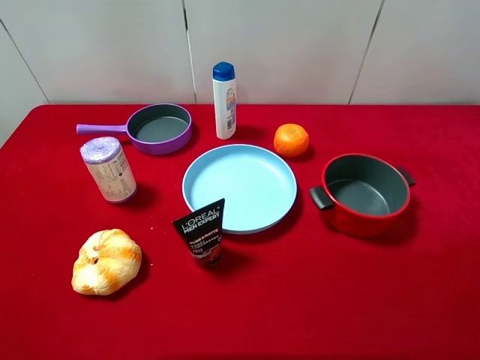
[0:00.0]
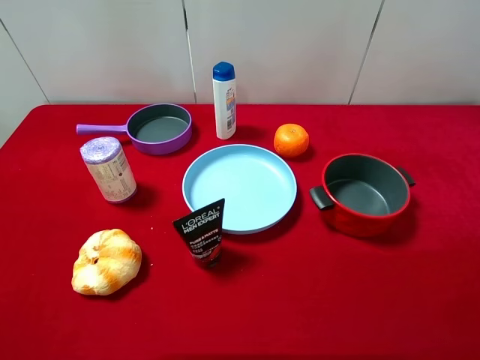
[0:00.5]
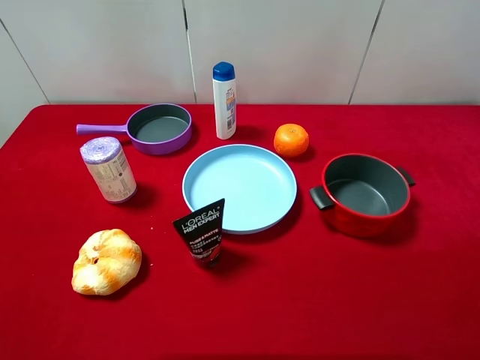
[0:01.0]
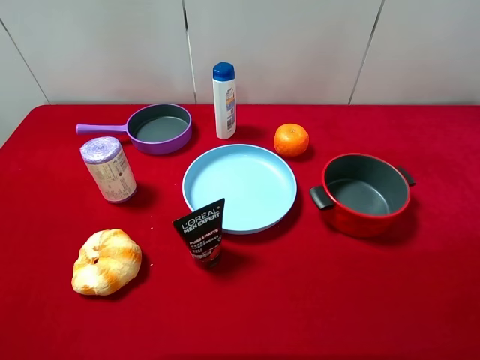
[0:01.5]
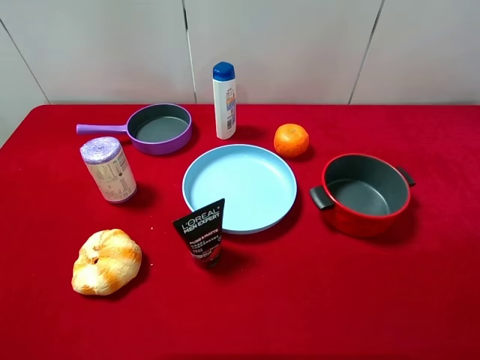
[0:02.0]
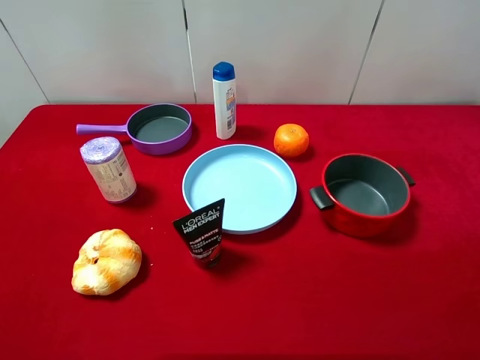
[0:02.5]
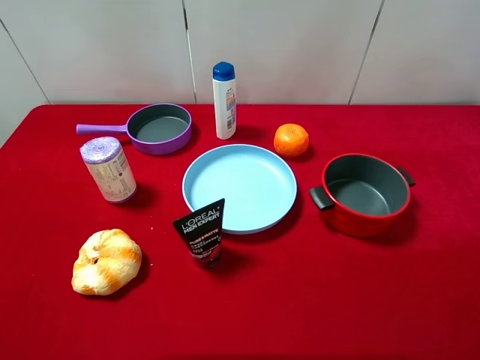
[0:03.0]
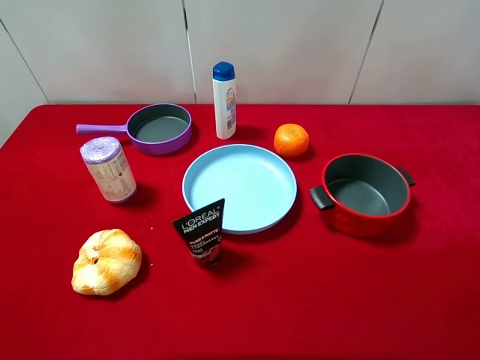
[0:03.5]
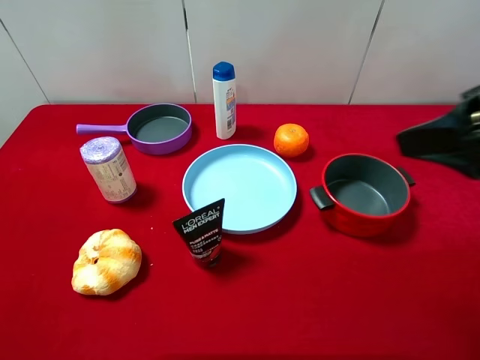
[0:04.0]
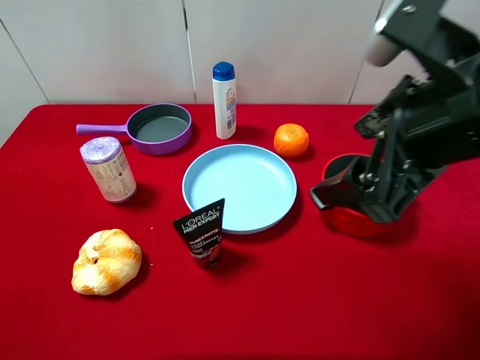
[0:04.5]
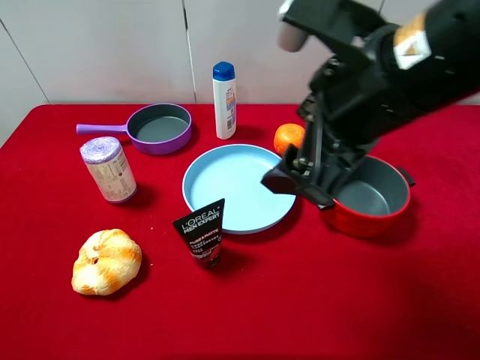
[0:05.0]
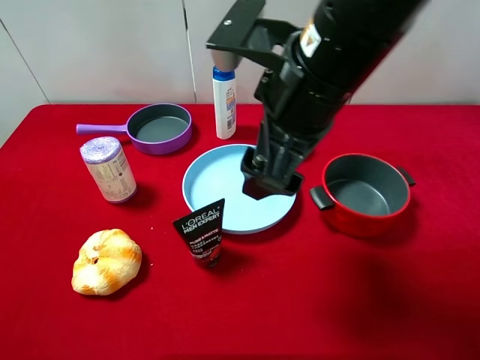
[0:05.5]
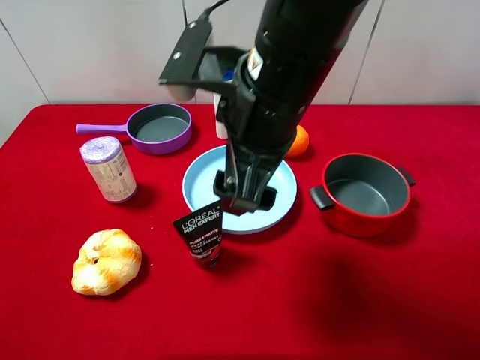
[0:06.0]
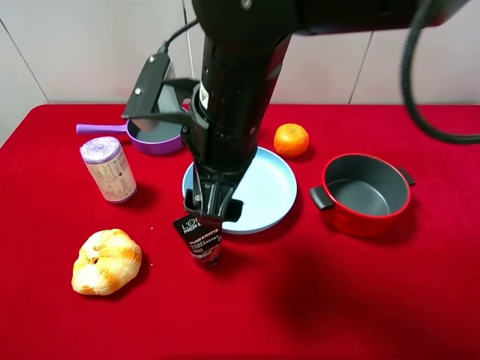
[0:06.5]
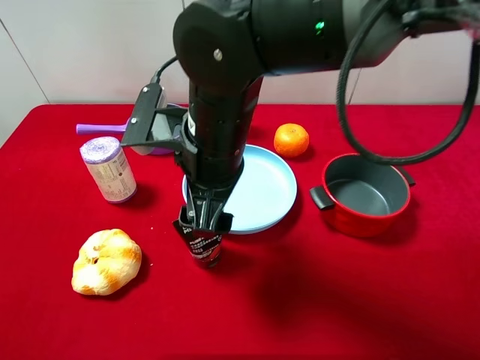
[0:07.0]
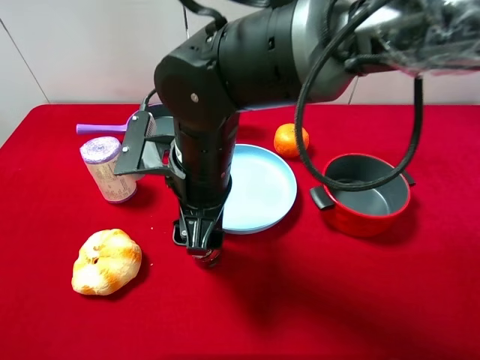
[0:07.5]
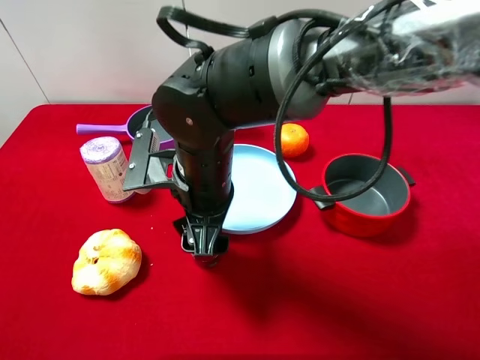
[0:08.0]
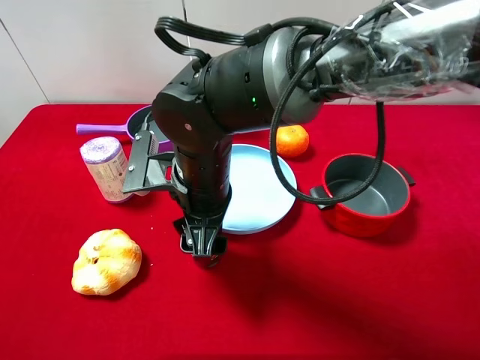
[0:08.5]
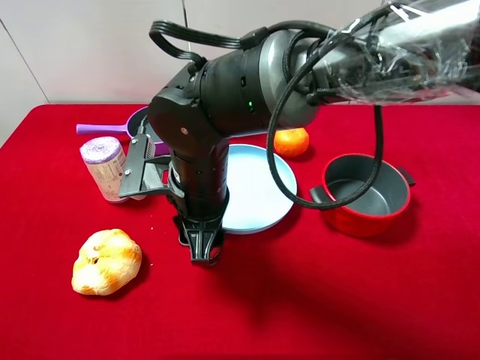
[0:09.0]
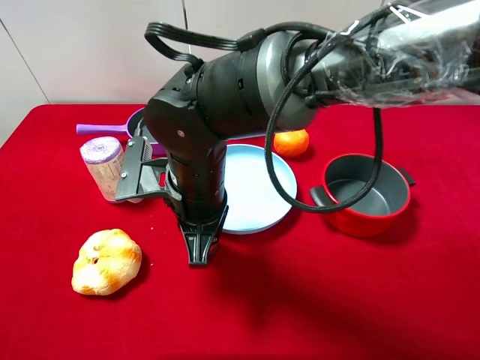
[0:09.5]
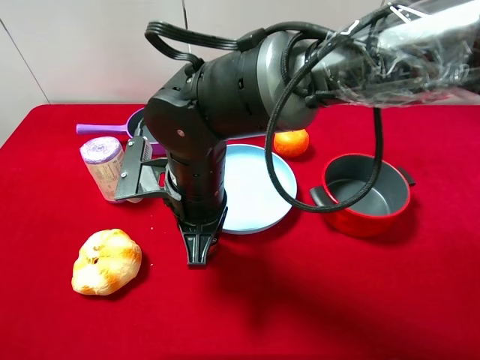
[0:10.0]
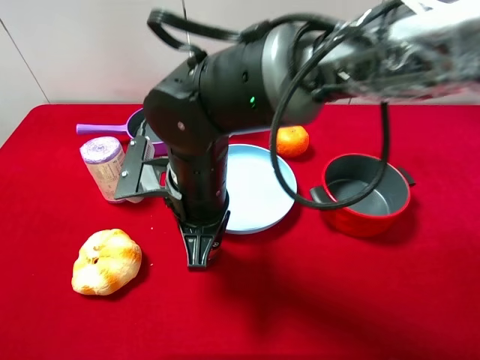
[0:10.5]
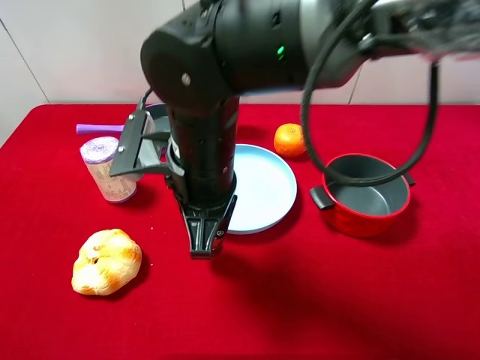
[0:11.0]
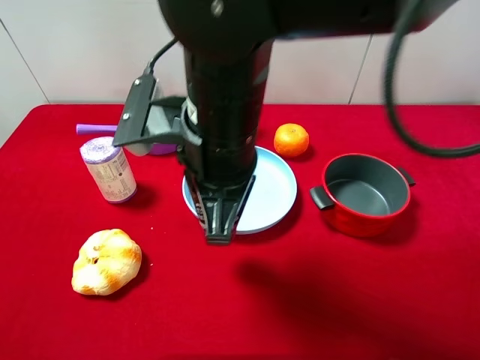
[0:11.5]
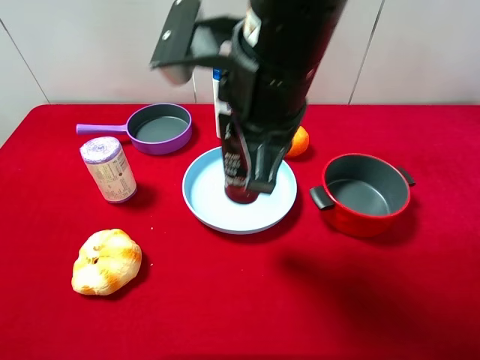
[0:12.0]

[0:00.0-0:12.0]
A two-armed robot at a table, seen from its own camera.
Task of the whole recording: pick up an item with a gripper and place it in a random container on the desktop.
0.0 to 2.0 s: Both grippers stay about where they are.
2.0 to 4.0 s: The right gripper heads forward and to the left, covering approximately 15 cm.
4.0 to 6.0 s: The right gripper heads to the left, covering roughly 20 cm.
6.0 to 8.0 s: The right gripper shifts roughly 15 cm downward and to the left.
8.0 to 10.0 s: The right gripper closes up.
10.0 to 12.0 s: The right gripper heads upward and to the right, covering some 15 cm.

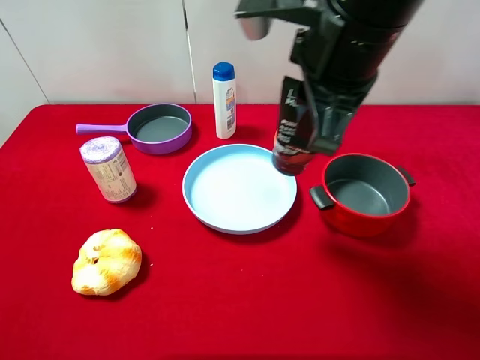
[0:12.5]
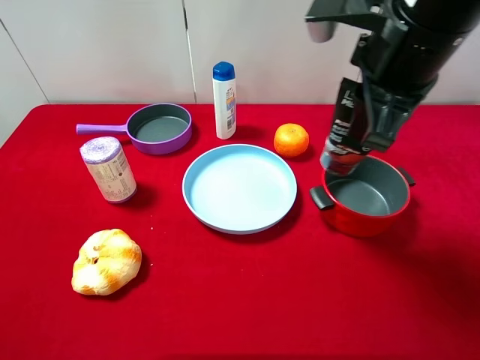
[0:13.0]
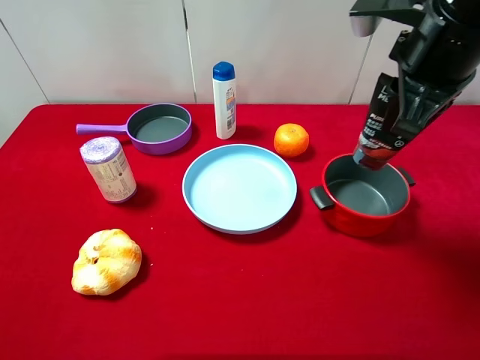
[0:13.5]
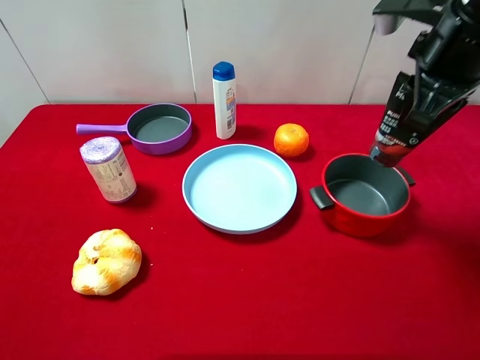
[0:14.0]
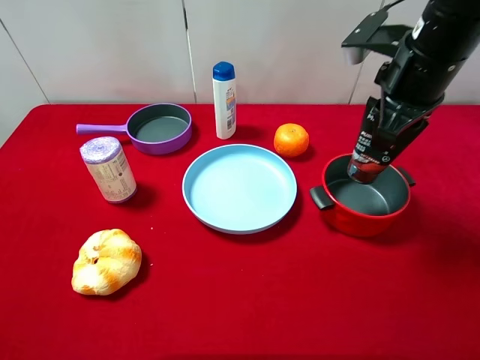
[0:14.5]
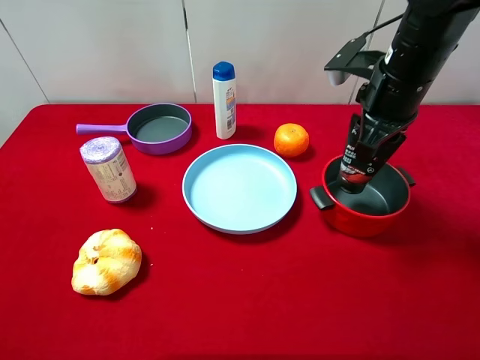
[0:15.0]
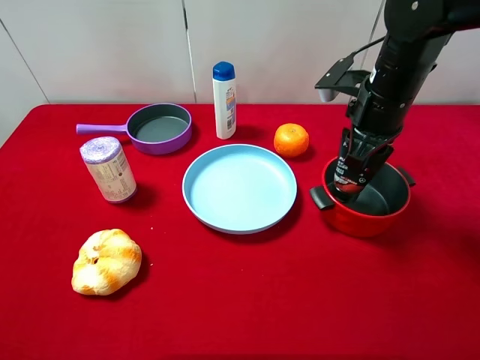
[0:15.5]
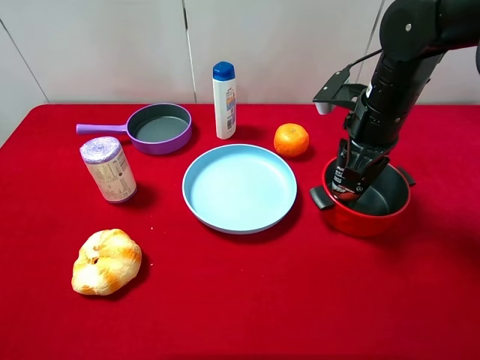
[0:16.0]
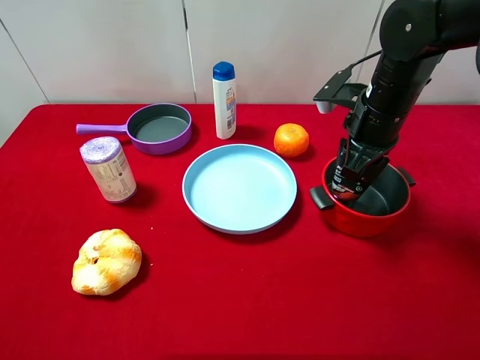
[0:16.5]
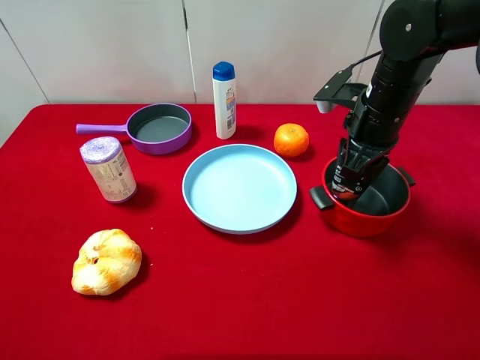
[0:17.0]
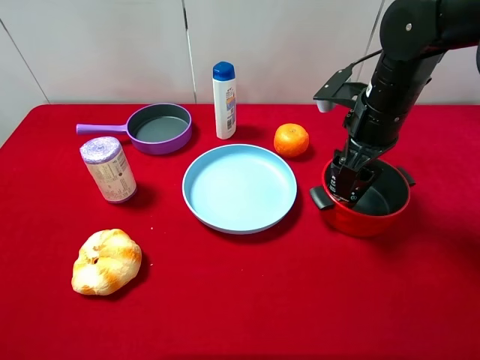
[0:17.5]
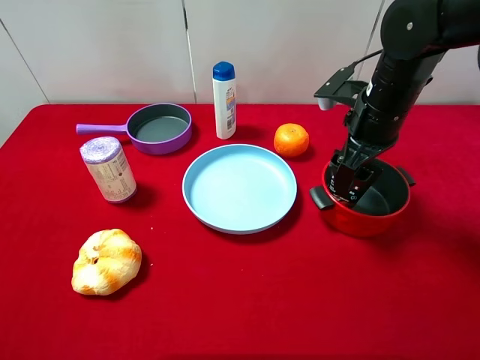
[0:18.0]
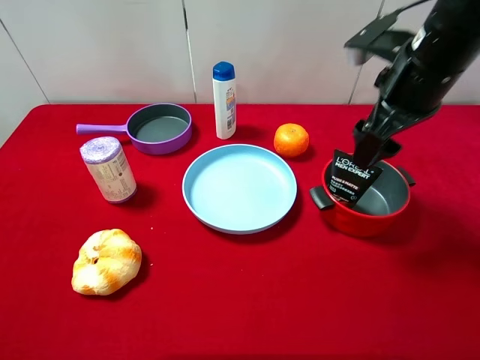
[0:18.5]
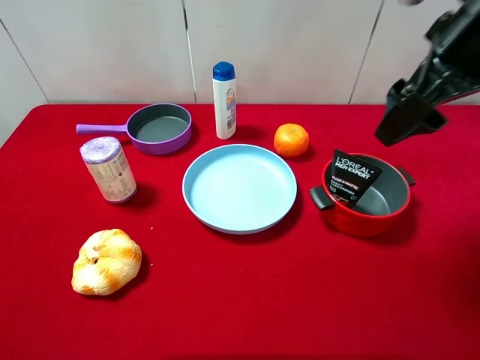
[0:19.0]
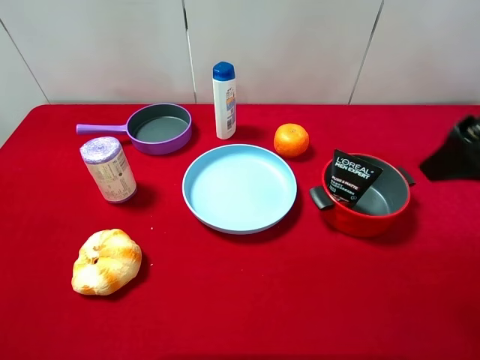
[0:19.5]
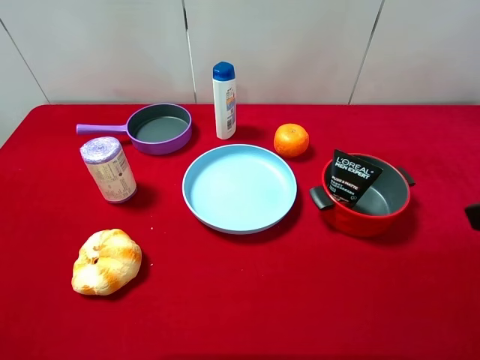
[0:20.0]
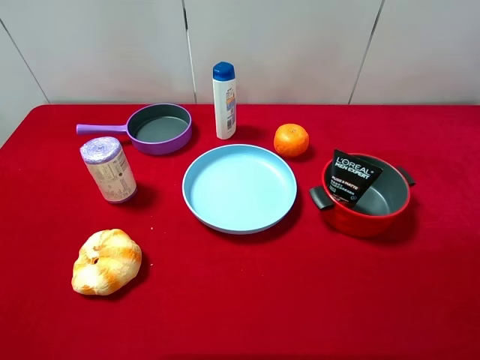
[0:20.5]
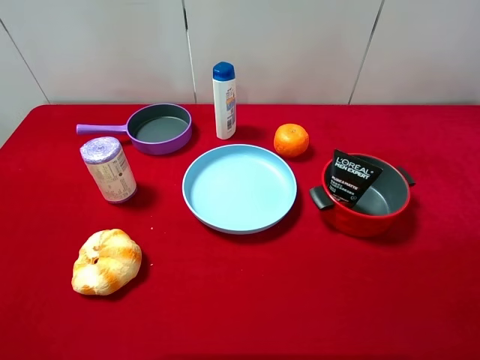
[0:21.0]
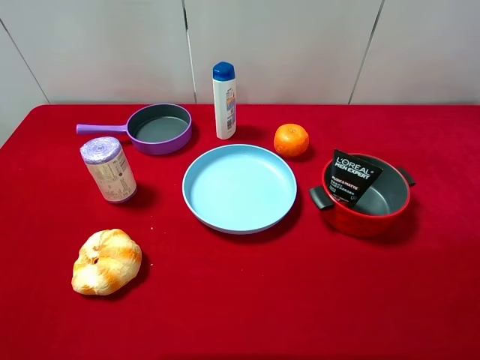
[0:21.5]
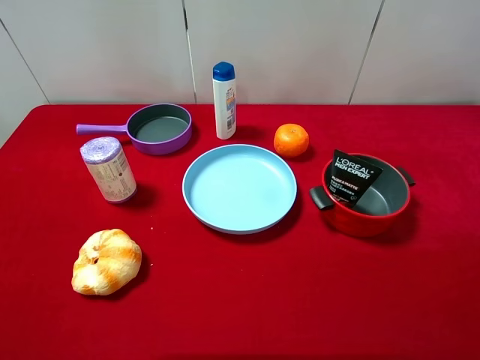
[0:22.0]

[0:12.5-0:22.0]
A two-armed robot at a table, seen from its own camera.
Task of the whole recording: pick up an item with a gripper and place it in a random container on the desktop.
12.5 to 14.5 s: The right gripper heads to the right, forward and downward, covering about 15 cm.
14.5 to 16.5 s: The right gripper is displaced downward by approximately 10 cm.
16.5 to 18.0 s: The right gripper opens.
18.0 to 20.0 s: The right gripper moves backward and upward, approximately 25 cm.

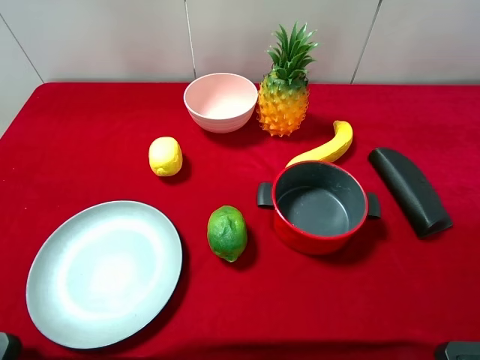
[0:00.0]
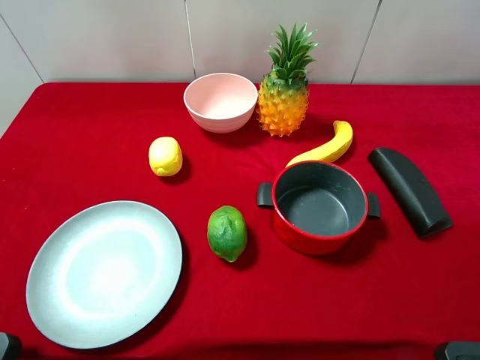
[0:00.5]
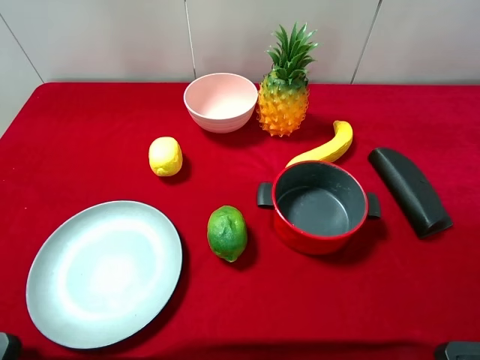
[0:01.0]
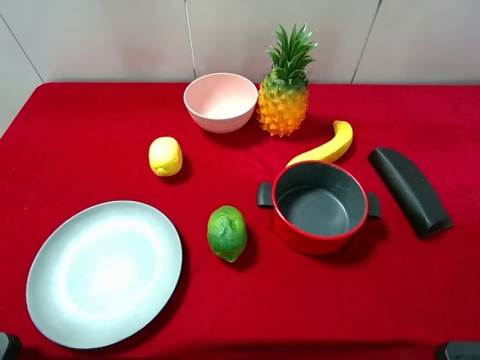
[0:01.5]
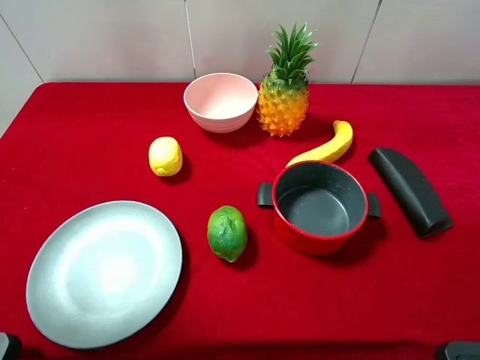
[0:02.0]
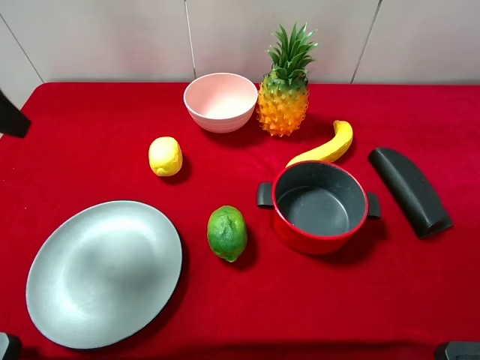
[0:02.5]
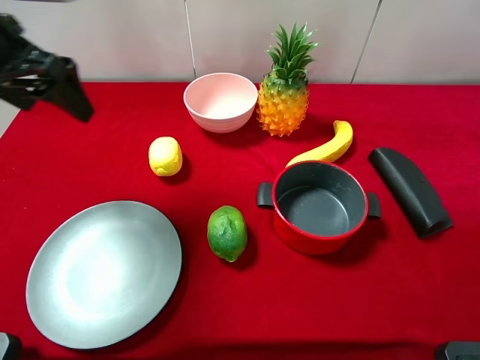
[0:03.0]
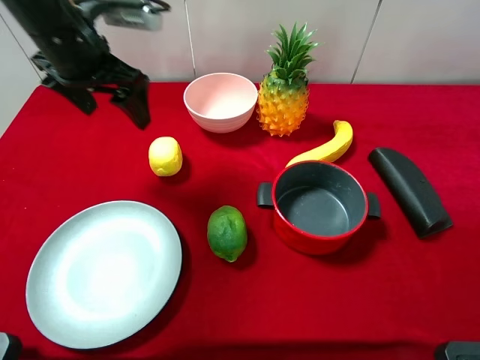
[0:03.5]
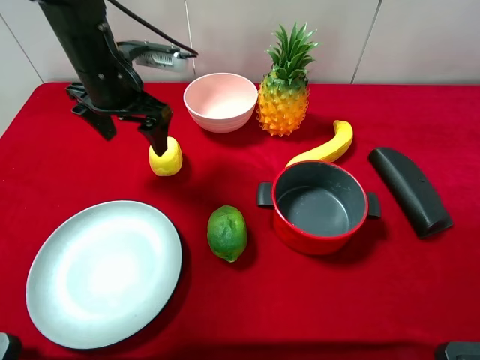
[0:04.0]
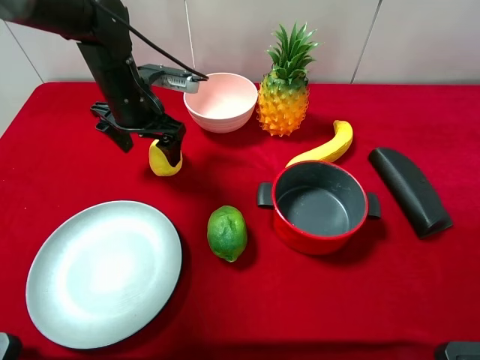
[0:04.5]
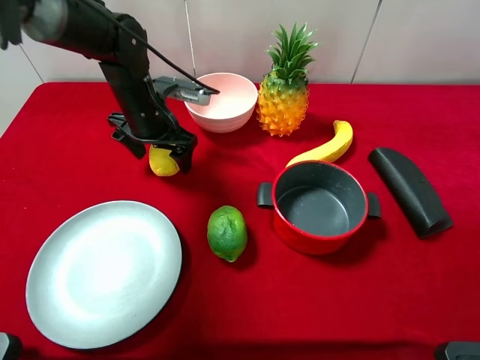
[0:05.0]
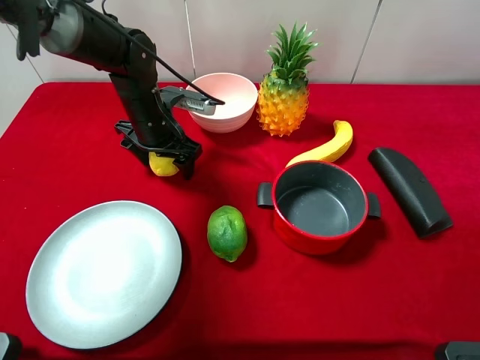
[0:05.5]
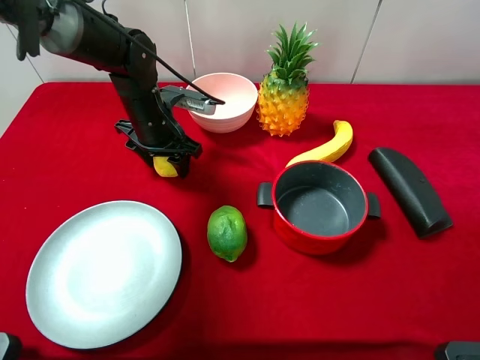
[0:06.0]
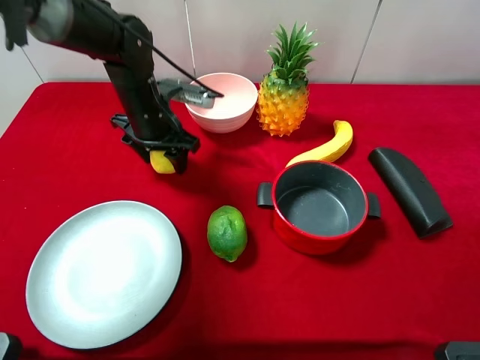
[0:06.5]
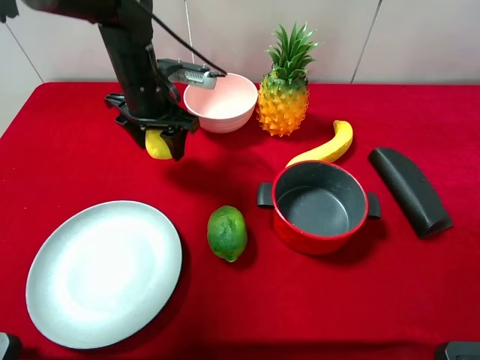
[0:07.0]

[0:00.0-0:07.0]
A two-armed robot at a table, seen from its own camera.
Task of the whole recording: pick up an item with a gripper and place it in a random container on the desktop.
0.0 to 2.0 s: The left gripper heads forward, covering approximately 10 cm.
2.0 to 3.5 s: The left gripper shifts some 25 cm forward and to the right.
3.5 to 5.0 s: The left gripper shifts roughly 10 cm downward.
5.0 to 7.0 s: The left gripper closes its fingers.
